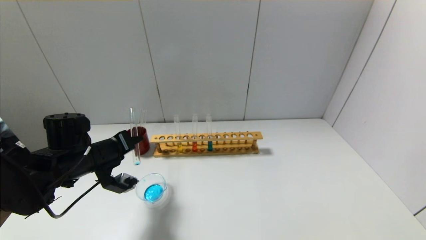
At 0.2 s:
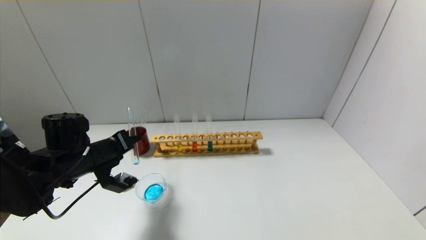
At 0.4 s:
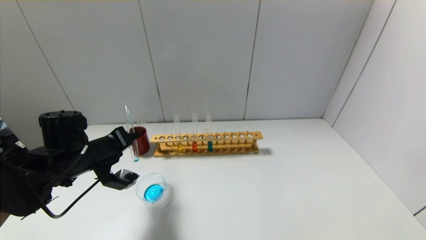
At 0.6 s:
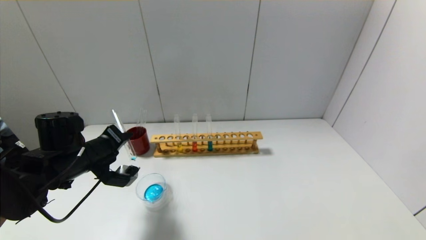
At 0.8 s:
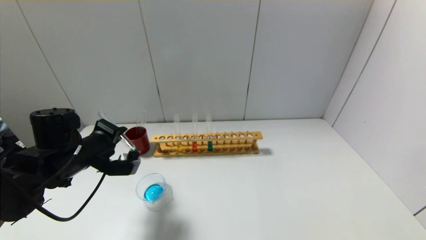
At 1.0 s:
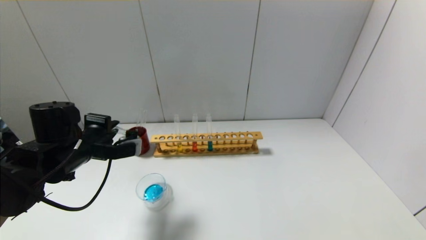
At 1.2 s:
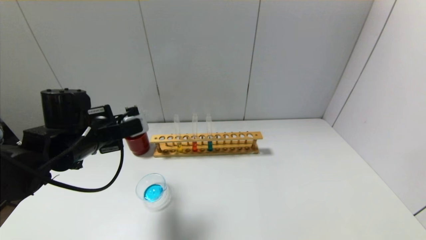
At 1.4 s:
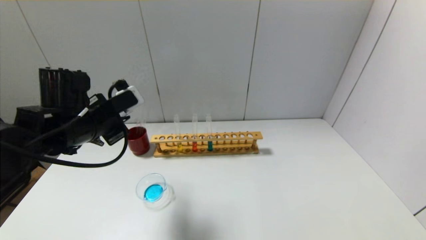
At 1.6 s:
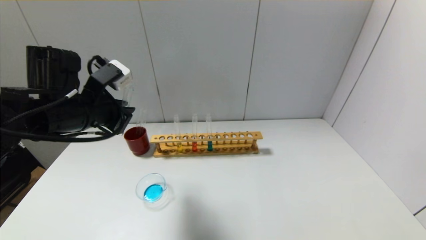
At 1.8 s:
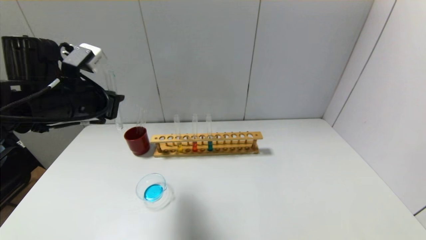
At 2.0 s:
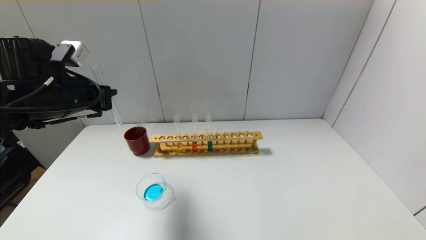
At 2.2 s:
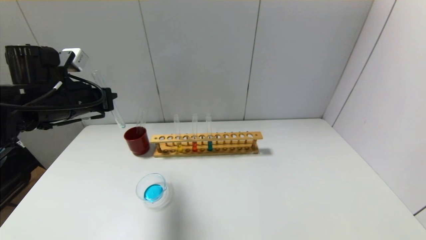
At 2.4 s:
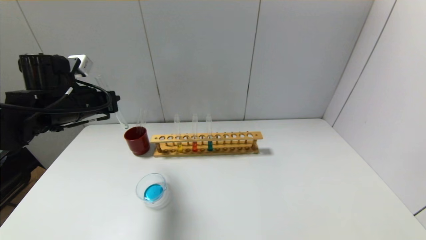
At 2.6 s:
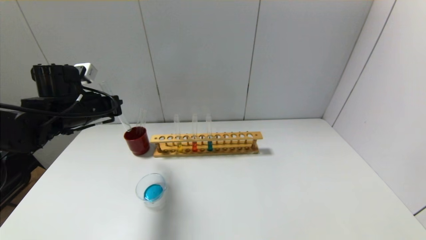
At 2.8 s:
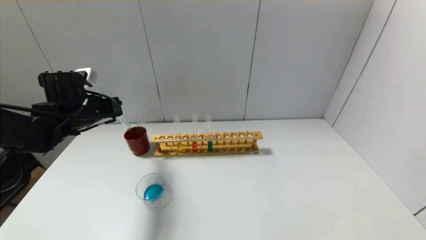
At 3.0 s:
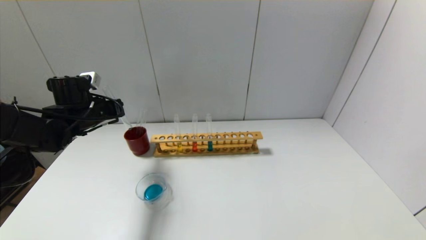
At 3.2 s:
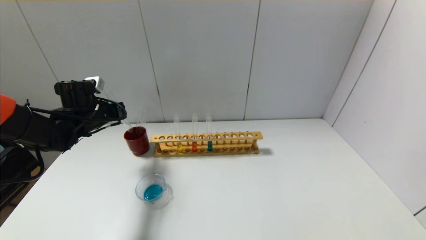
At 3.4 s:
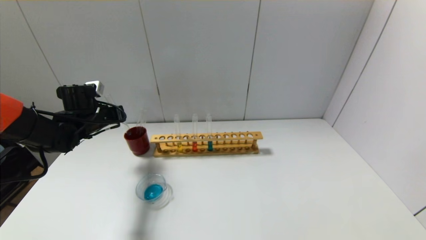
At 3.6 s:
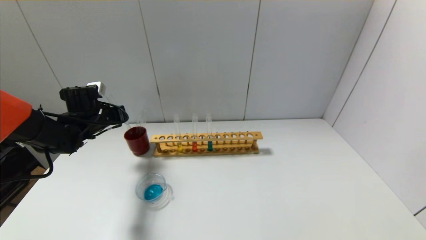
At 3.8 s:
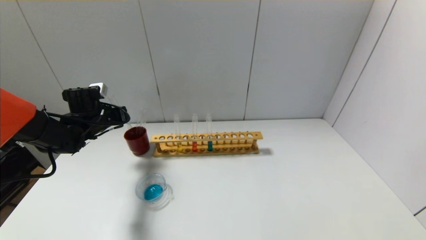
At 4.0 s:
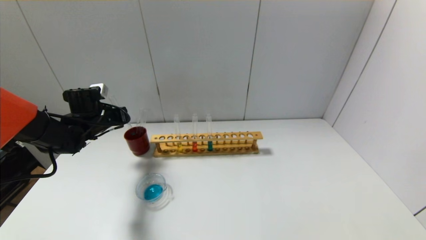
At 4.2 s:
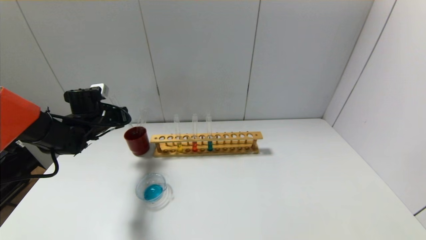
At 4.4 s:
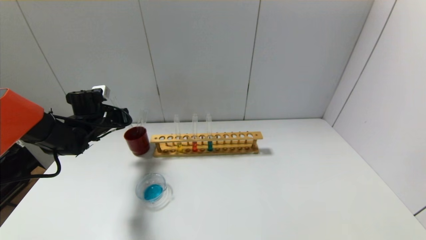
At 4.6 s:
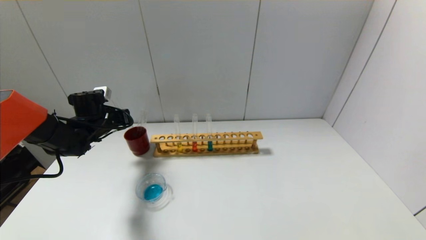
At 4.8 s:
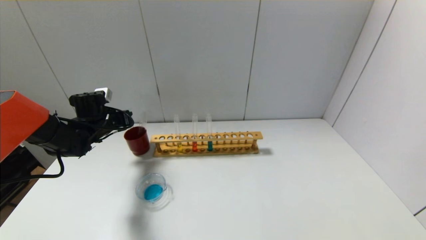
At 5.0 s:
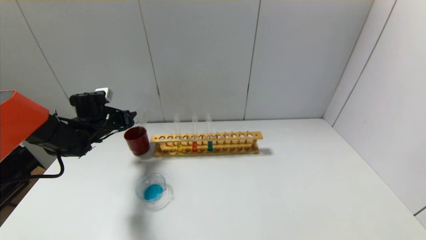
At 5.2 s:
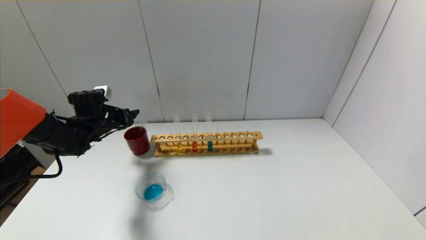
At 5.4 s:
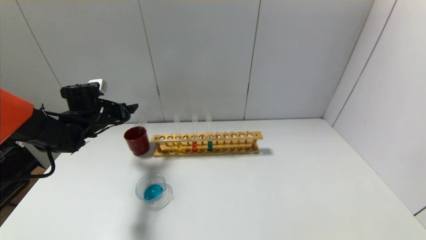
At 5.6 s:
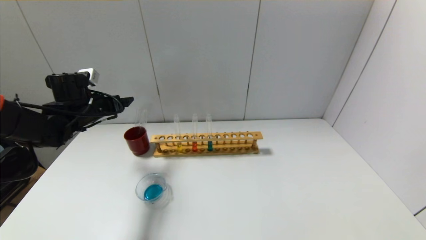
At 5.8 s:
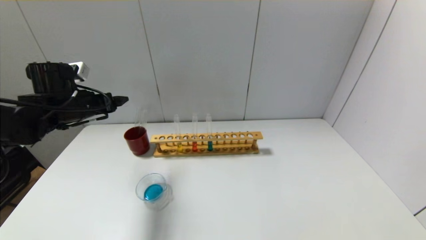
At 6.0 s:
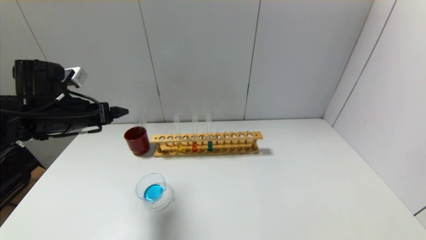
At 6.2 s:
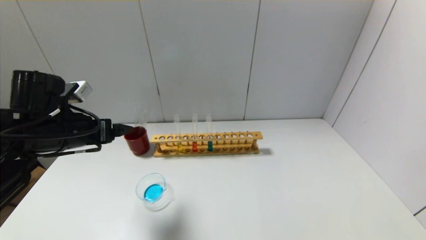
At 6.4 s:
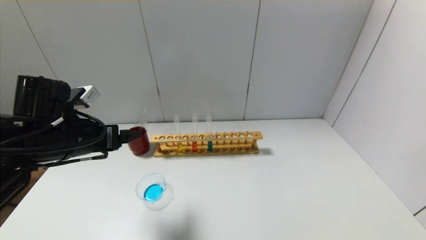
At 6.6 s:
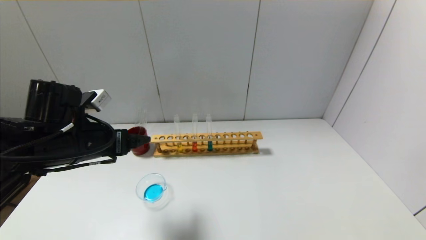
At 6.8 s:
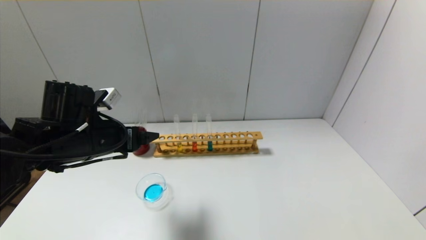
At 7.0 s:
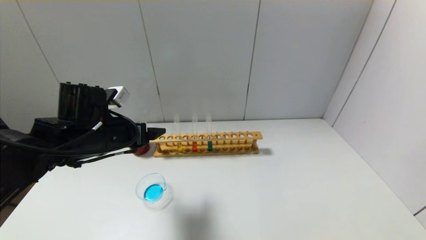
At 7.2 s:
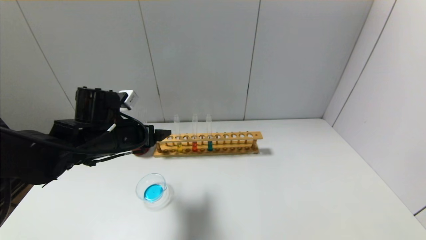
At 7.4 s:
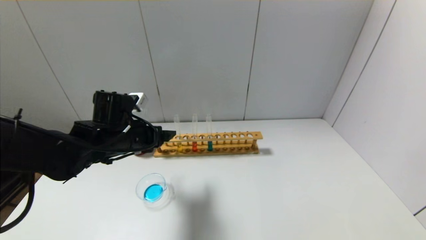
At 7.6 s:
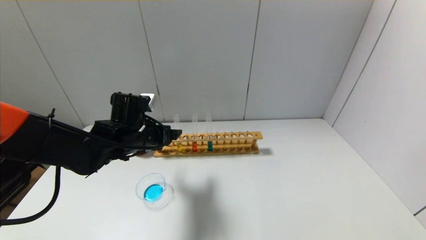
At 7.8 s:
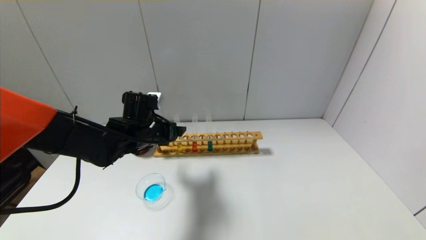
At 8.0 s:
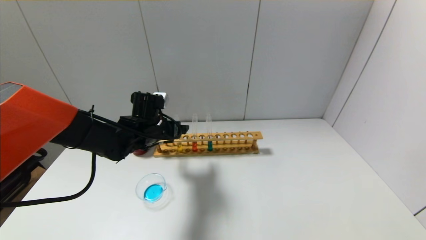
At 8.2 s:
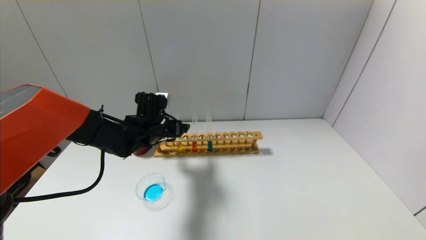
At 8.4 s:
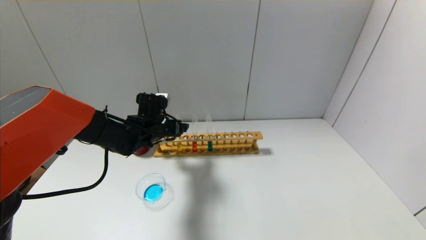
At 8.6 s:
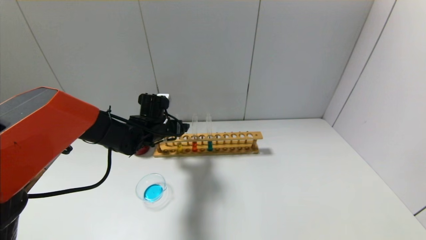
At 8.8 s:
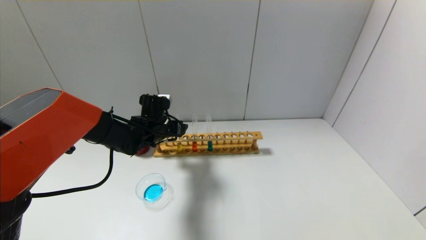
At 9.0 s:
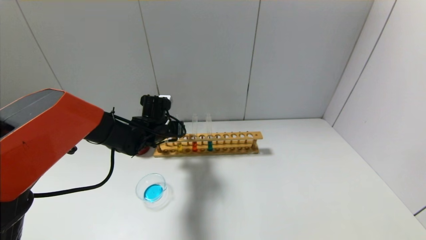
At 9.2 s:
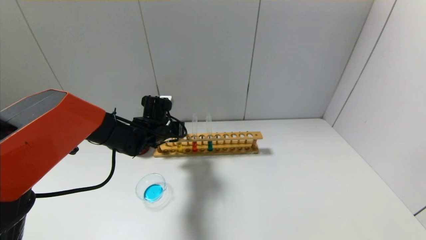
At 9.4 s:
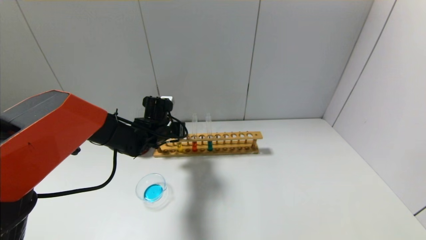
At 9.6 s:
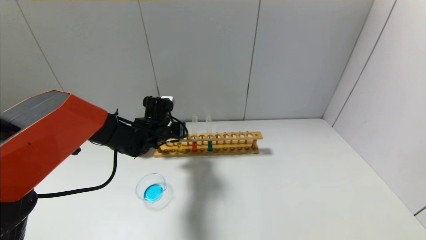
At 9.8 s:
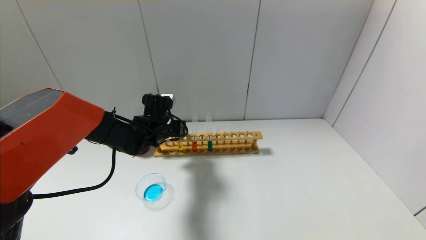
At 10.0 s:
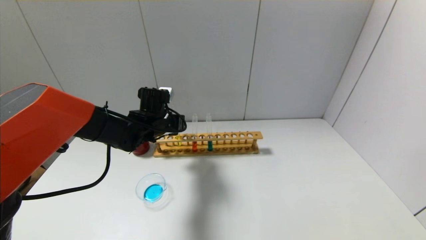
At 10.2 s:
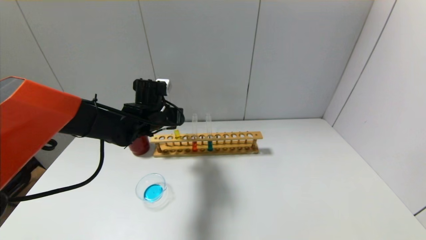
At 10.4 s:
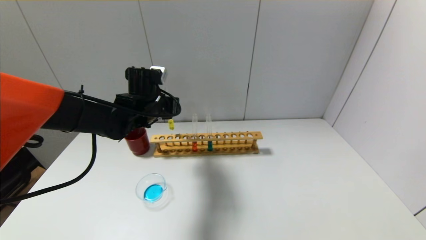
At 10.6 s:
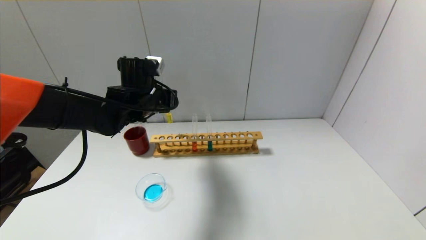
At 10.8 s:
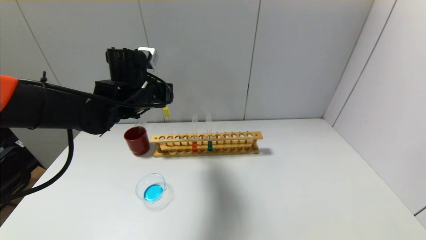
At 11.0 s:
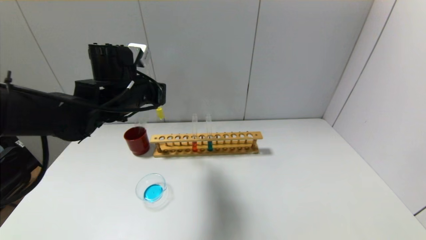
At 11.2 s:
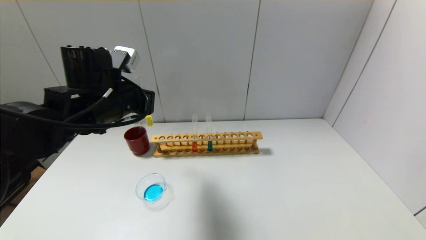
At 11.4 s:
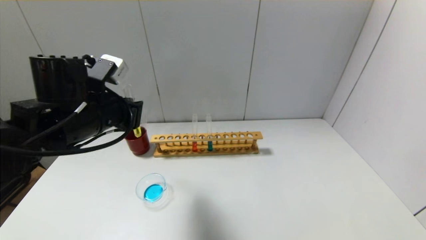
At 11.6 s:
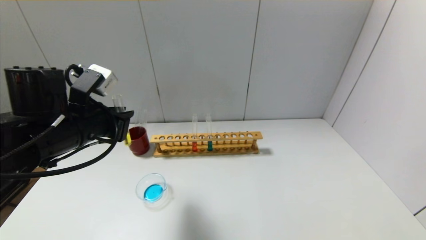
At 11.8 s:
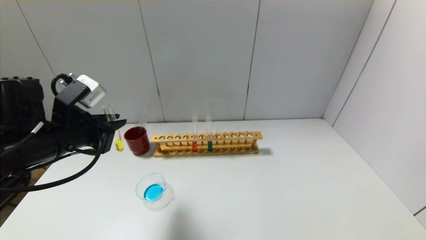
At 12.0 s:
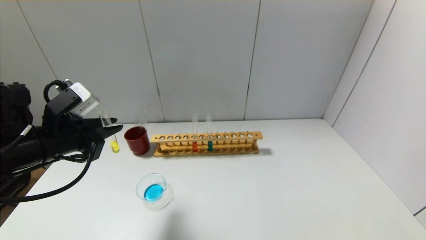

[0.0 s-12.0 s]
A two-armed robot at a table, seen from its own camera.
Step, 1.0 to 4.8 s: Place the test tube into the brown cup with the left gripper.
Step, 5.0 to 9.2 s: Grasp the yellow reagent with the left gripper.
0.0 to 1.6 s: The left gripper shifts roughly 10 cm upward.
1.6 to 3.0 s: The left gripper heads forward, downward and to the left, covering roughly 15 cm.
3.0 to 4.4 s: The left gripper changes place by about 5 cm.
4.4 to 6.0 s: The left gripper shifts approximately 15 cm backward and upward, and opens up.
6.0 to 7.6 s: The left gripper is displaced to the right and downward by roughly 15 cm.
7.6 to 9.0 s: The left gripper is displaced forward by approximately 10 cm, and closes its fingers.
9.0 to 10.4 s: The left gripper moves upward, roughly 10 cm, and closes up.
10.4 to 12.0 s: The left gripper travels backward and to the left by some 20 cm.

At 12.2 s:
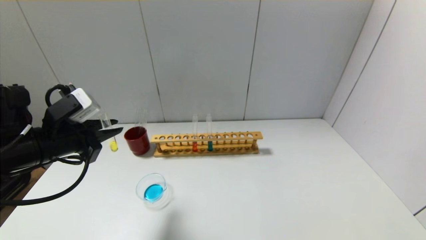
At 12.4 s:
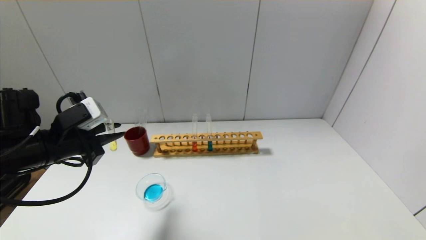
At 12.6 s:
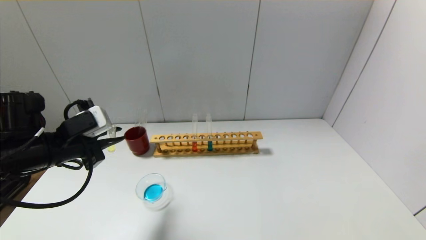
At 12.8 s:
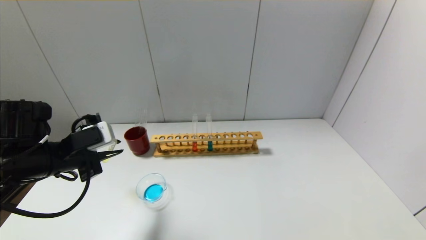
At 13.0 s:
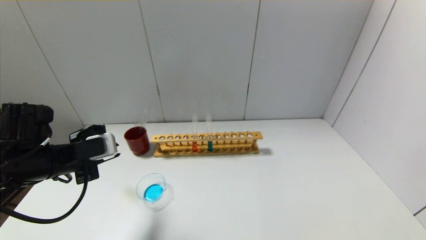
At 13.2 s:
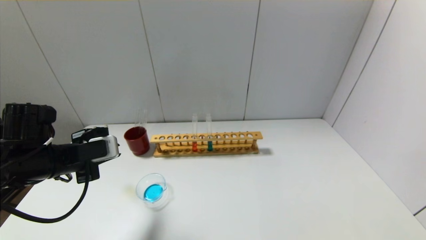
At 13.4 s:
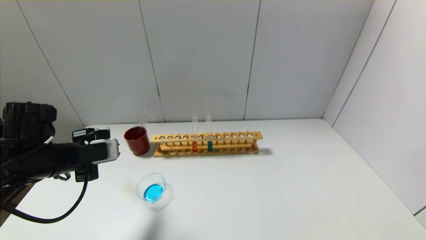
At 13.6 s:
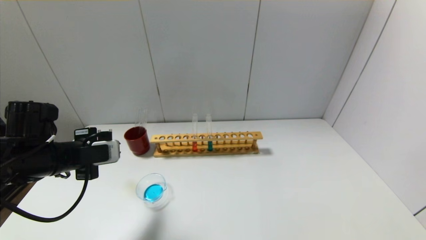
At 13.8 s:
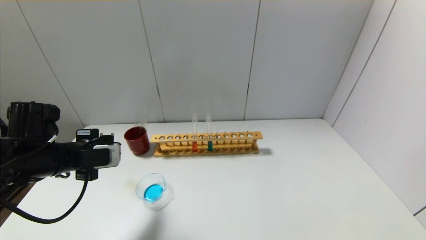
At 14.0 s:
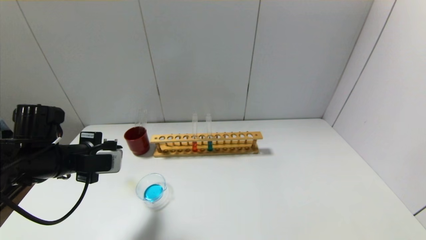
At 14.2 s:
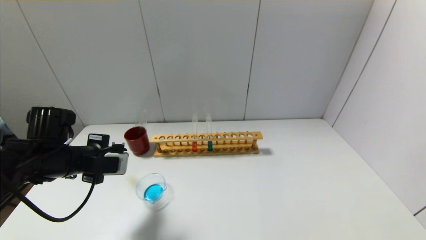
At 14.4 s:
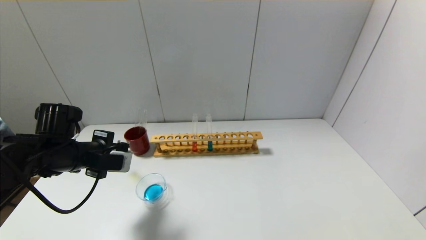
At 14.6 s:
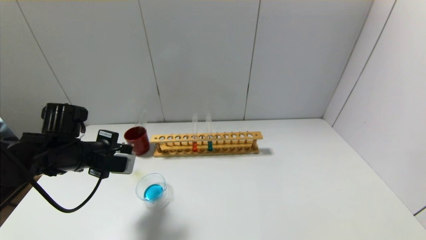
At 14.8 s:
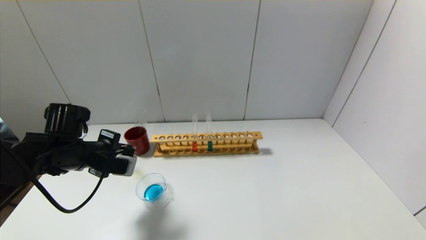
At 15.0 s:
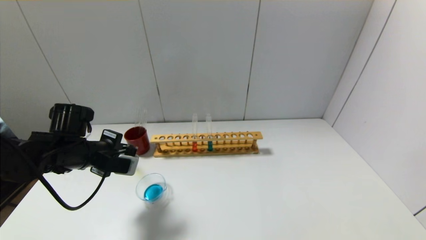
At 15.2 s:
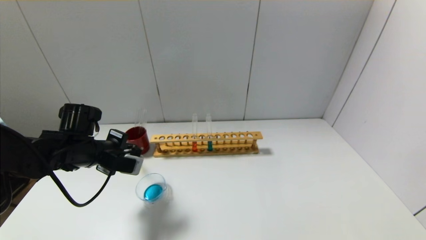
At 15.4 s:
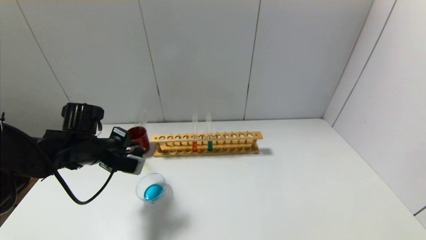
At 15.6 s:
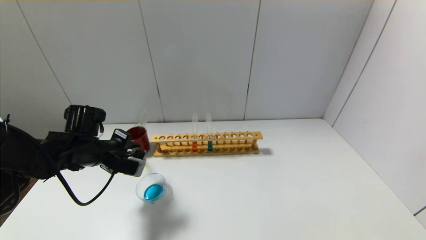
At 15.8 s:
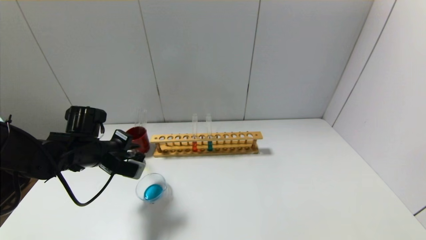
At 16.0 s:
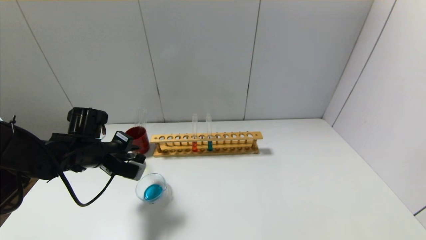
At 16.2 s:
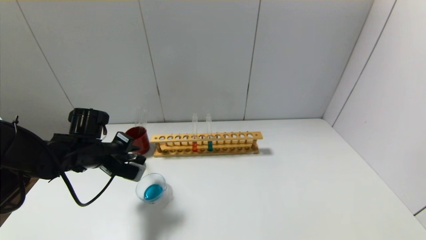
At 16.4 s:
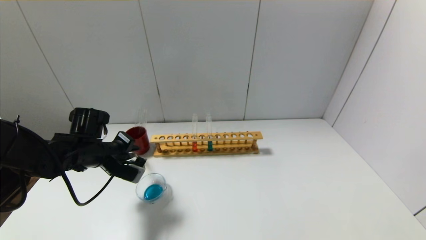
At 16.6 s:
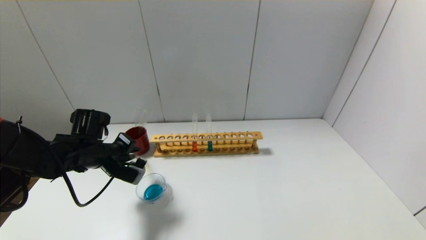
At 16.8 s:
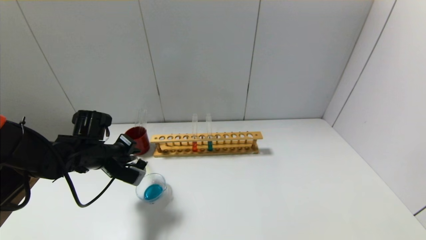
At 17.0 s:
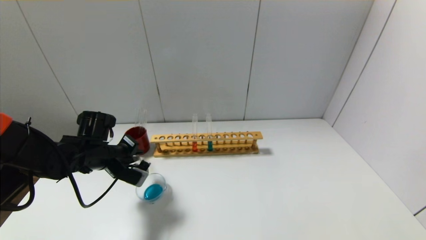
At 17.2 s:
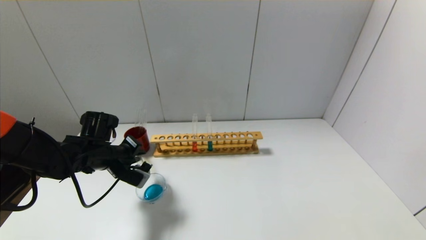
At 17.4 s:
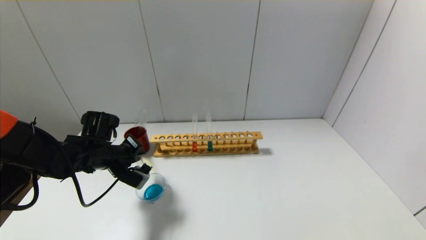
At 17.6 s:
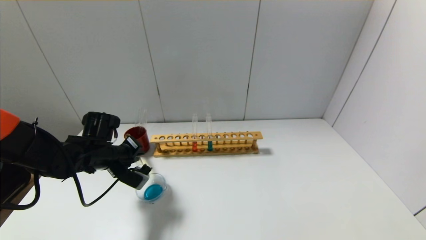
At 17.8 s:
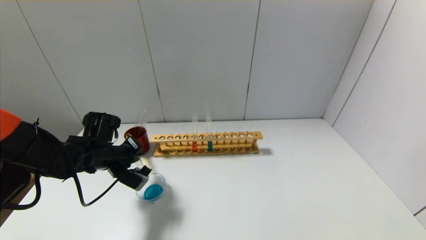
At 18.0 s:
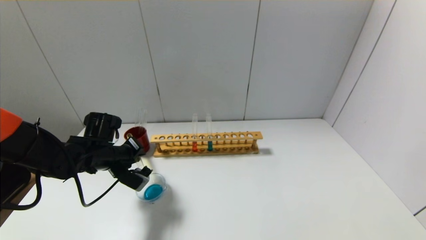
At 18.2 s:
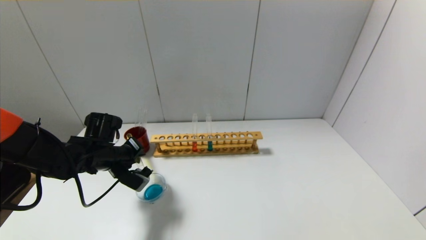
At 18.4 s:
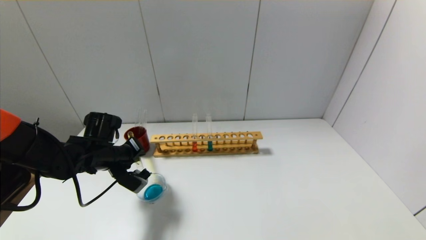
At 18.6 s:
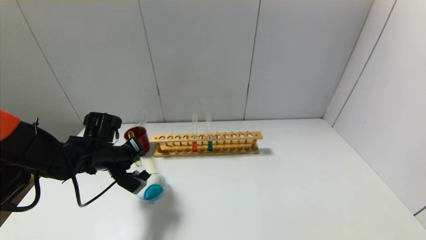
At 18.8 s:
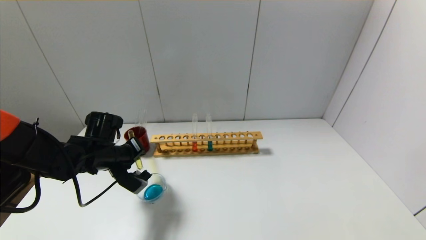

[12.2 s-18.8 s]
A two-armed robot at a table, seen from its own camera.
13.8 to 15.4 s: The left gripper is displaced forward by some 5 cm.
15.4 to 17.2 s: The grippers stay close to where they were, moving slightly.
17.2 to 18.8 s: There are only small adjustments of the grippers.
